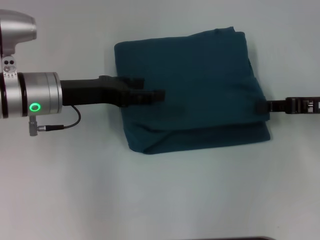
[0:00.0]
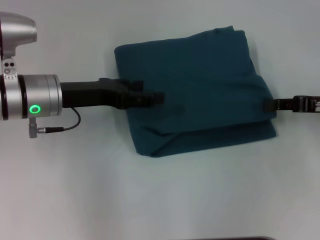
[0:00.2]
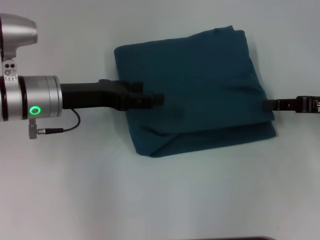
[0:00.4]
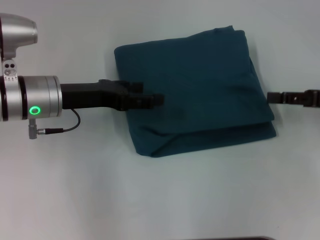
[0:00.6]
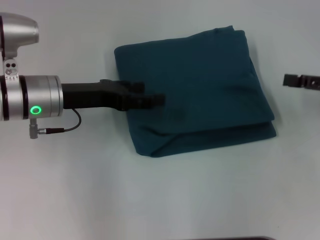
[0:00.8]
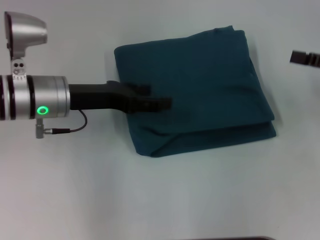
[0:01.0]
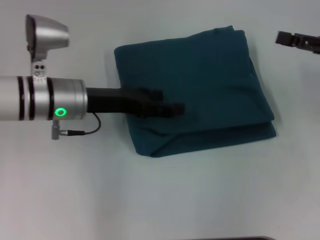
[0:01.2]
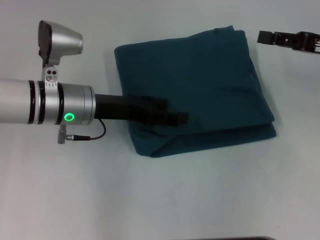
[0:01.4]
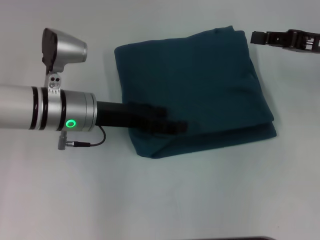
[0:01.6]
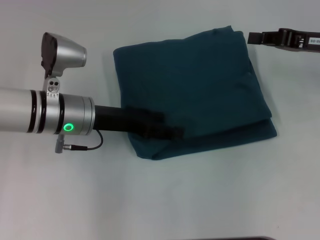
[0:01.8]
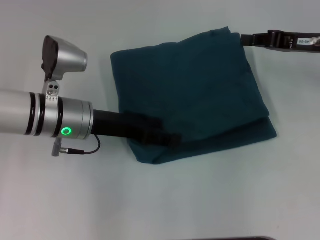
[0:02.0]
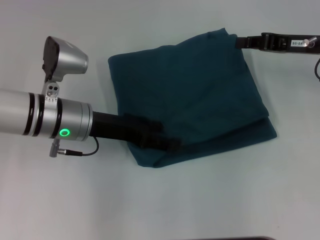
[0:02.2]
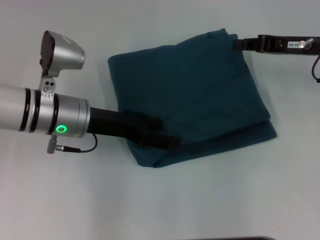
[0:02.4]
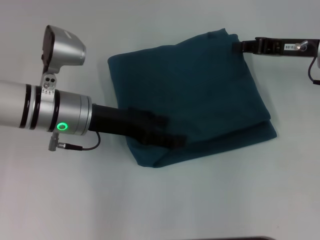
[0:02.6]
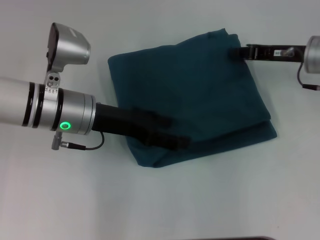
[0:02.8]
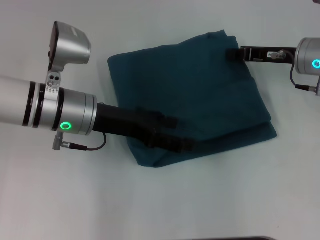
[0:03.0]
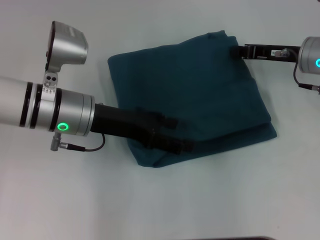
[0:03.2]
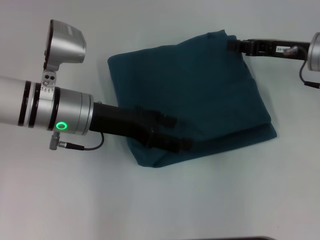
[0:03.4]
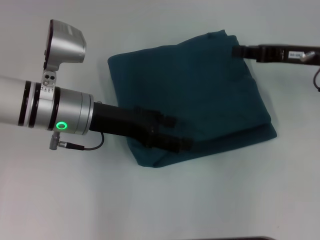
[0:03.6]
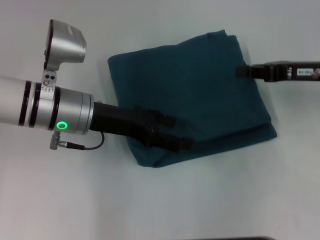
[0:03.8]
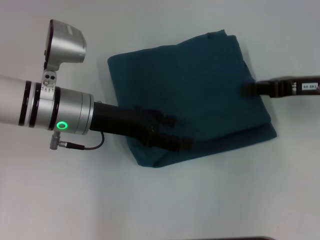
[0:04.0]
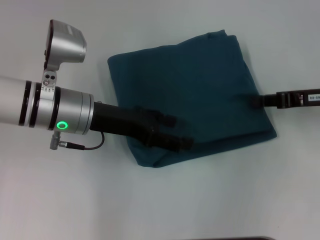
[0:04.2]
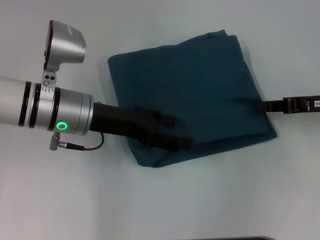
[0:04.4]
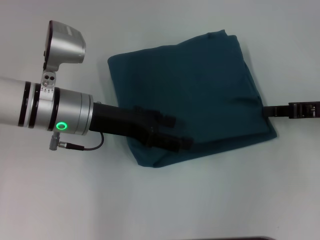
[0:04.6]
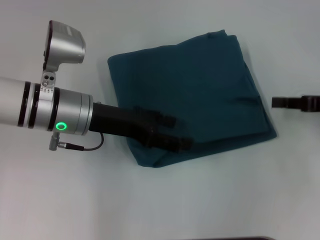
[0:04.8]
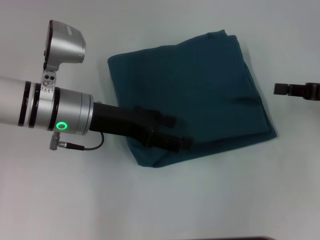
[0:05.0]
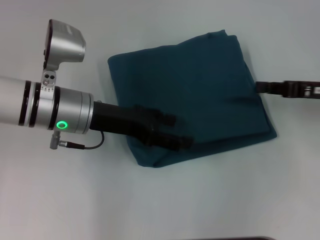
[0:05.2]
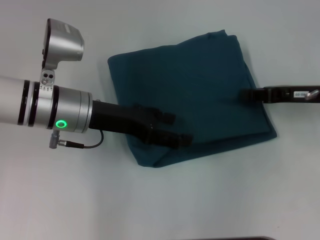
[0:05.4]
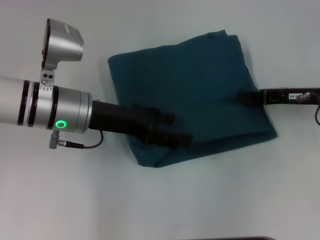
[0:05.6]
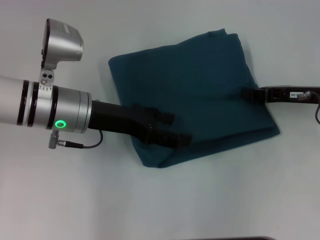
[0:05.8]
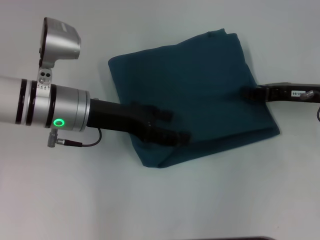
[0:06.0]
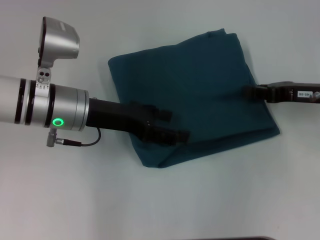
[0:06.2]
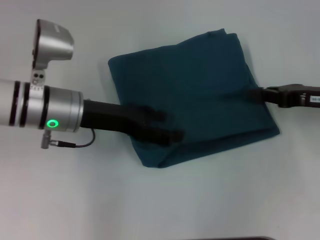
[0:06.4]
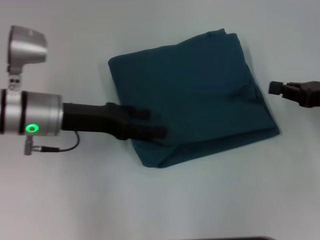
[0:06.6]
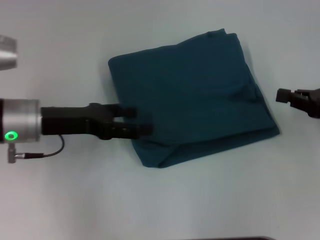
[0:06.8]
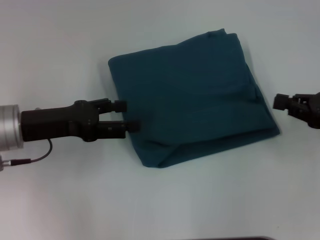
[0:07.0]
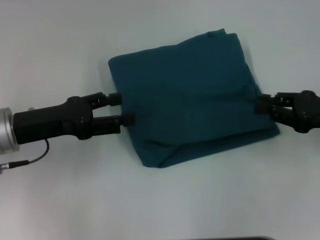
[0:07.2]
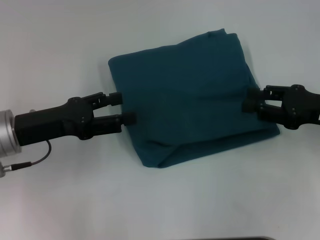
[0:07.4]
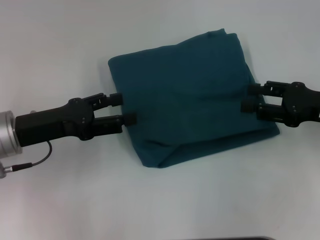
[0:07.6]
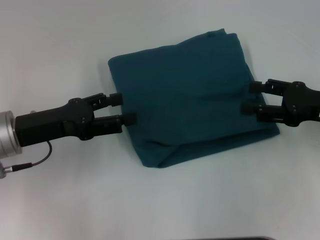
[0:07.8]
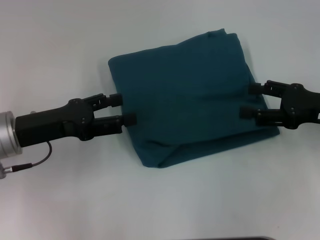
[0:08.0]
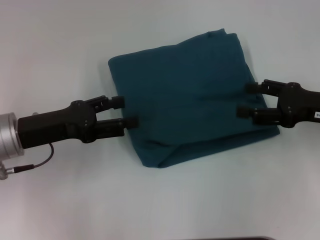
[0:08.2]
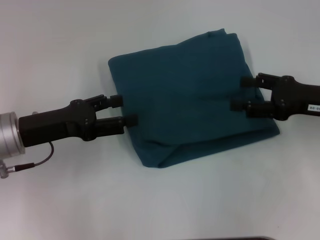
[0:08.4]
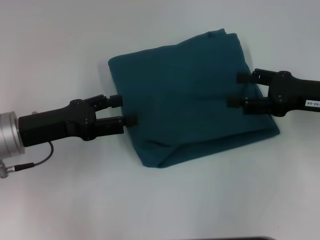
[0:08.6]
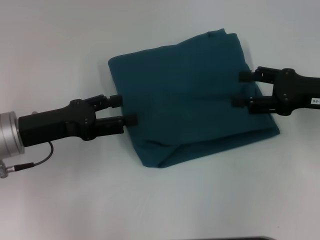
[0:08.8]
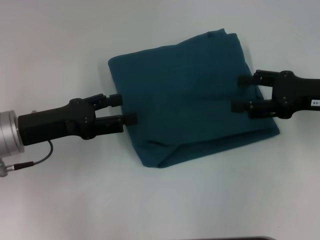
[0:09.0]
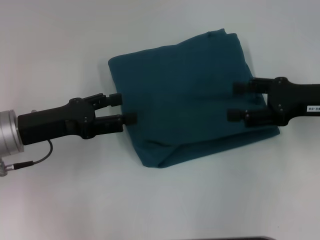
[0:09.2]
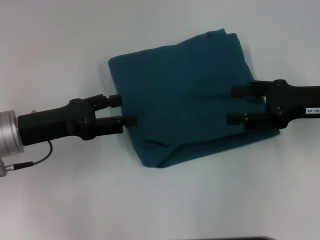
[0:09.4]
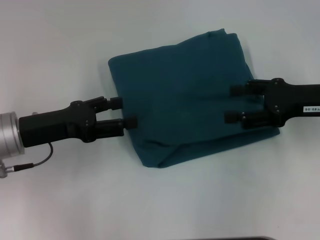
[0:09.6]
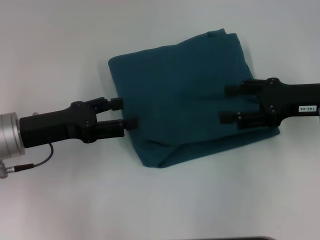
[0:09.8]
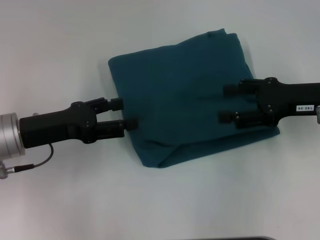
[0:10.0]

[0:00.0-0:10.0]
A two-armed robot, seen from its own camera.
0:00.0 to 0:01.4: The right gripper moves some 5 cm, and opens its fingers.
0:01.4 to 0:02.8: The right gripper heads to the left, covering roughly 5 cm, and closes its fingers.
0:02.8 to 0:04.2: The right gripper is displaced backward by approximately 5 cm.
0:04.2 to 0:05.8: There are only small adjustments of the grippers.
0:05.8 to 0:07.2: The right gripper goes approximately 5 cm backward, while the left gripper travels to the left by roughly 10 cm.
0:07.2 to 0:08.6: The right gripper opens.
0:08.6 to 0:10.0: The grippers stay close to where they were, moving slightly.
